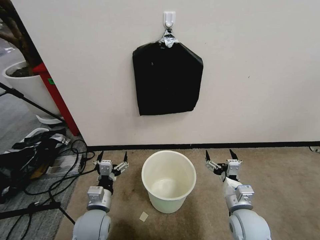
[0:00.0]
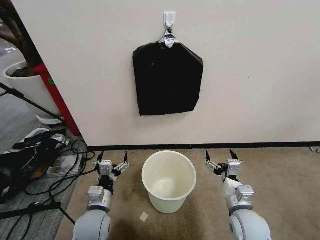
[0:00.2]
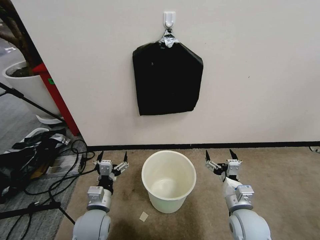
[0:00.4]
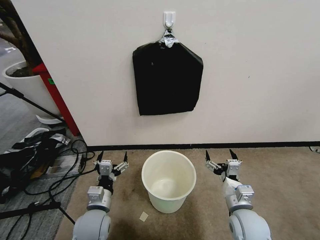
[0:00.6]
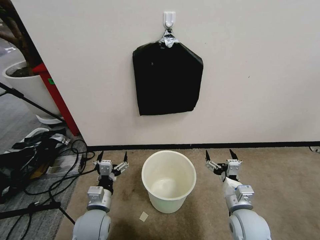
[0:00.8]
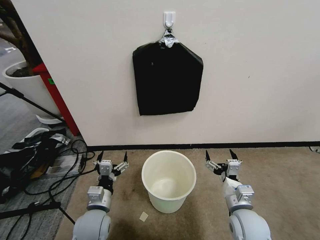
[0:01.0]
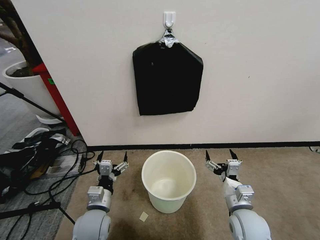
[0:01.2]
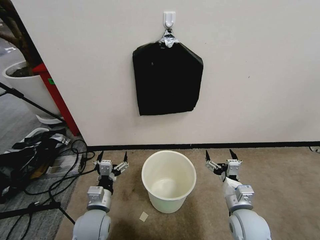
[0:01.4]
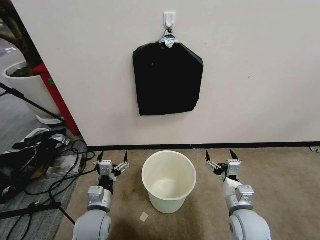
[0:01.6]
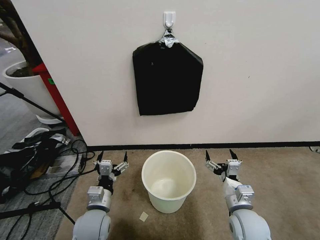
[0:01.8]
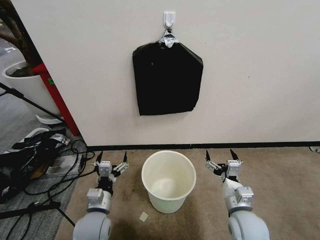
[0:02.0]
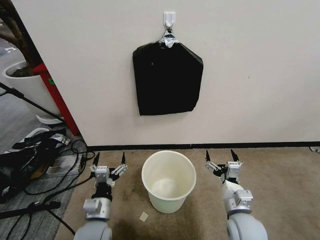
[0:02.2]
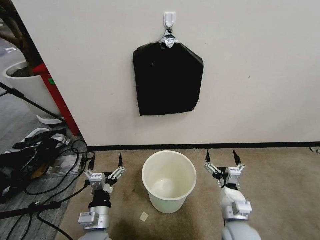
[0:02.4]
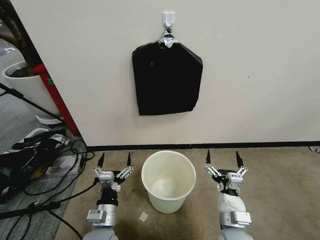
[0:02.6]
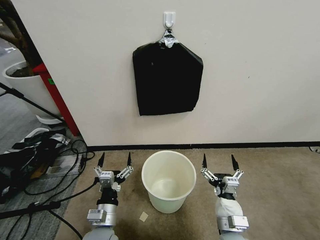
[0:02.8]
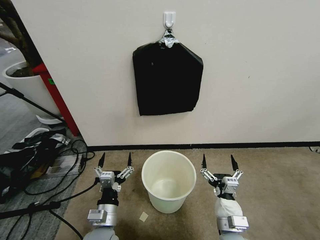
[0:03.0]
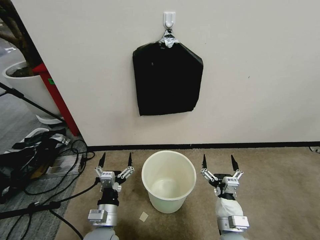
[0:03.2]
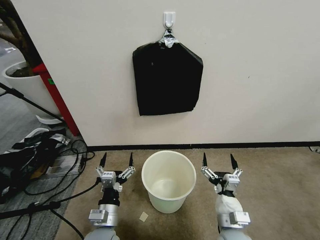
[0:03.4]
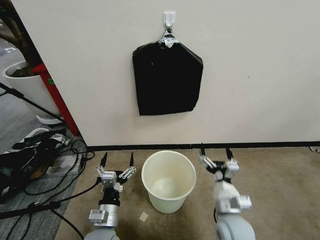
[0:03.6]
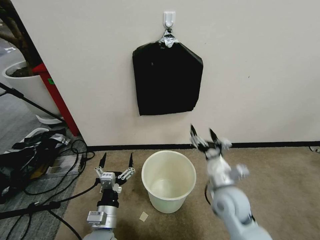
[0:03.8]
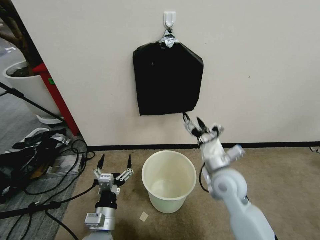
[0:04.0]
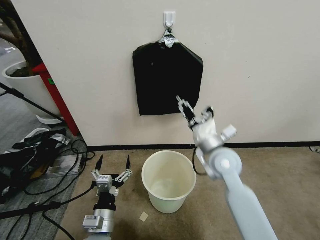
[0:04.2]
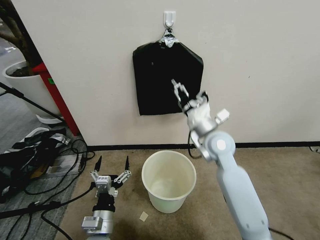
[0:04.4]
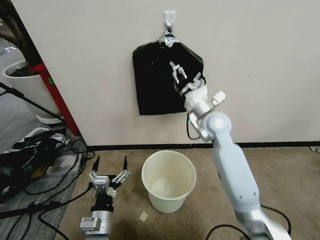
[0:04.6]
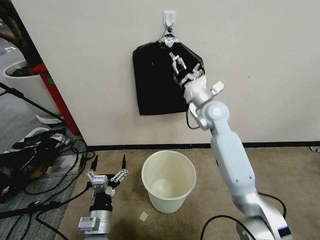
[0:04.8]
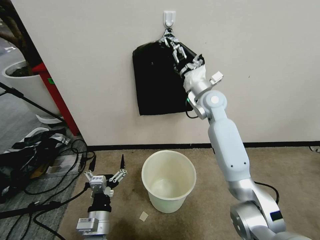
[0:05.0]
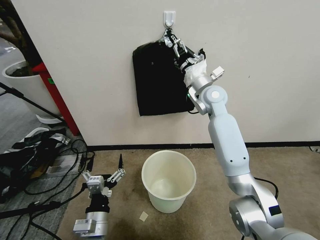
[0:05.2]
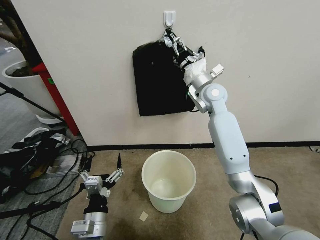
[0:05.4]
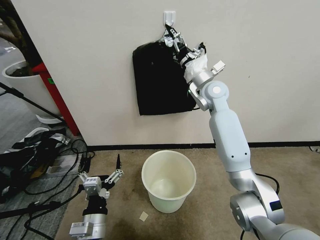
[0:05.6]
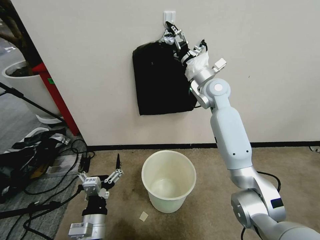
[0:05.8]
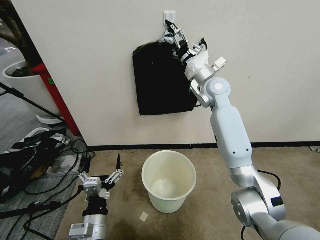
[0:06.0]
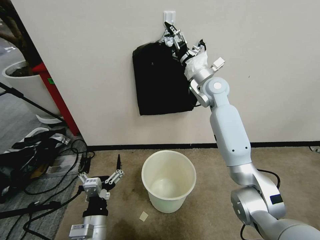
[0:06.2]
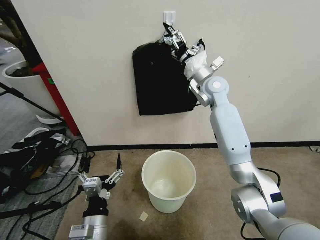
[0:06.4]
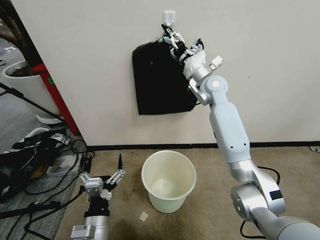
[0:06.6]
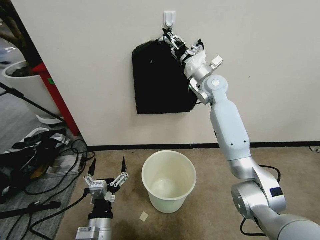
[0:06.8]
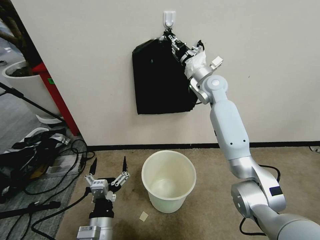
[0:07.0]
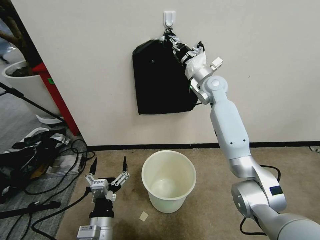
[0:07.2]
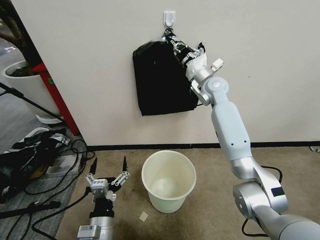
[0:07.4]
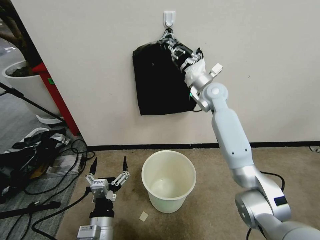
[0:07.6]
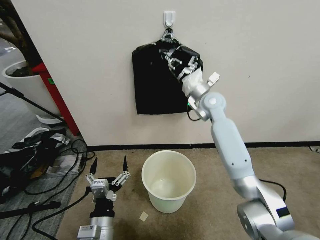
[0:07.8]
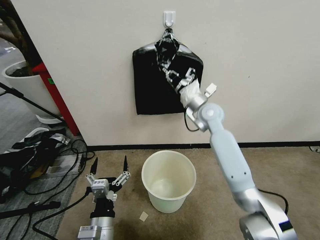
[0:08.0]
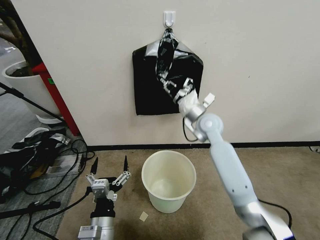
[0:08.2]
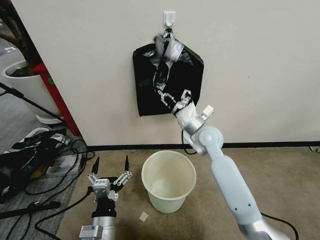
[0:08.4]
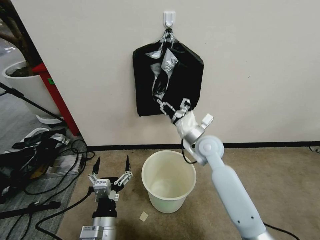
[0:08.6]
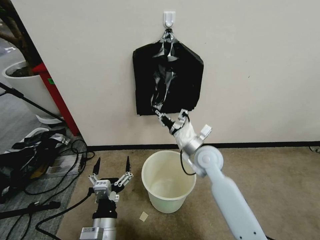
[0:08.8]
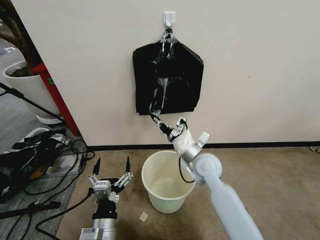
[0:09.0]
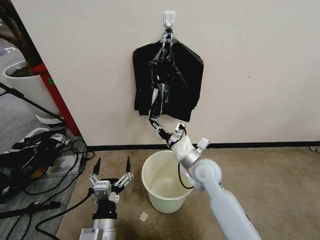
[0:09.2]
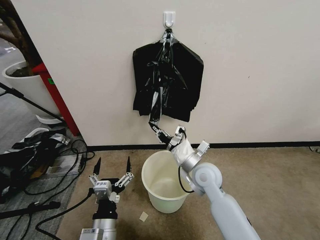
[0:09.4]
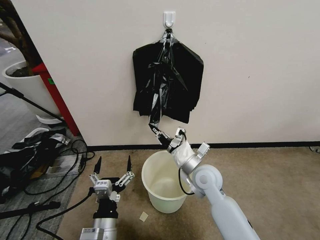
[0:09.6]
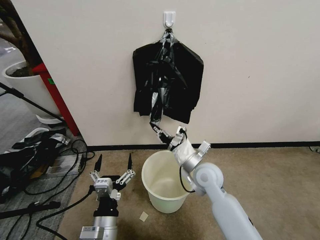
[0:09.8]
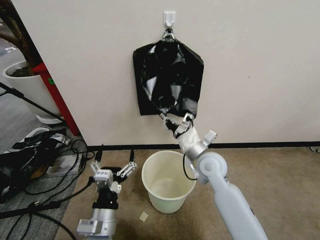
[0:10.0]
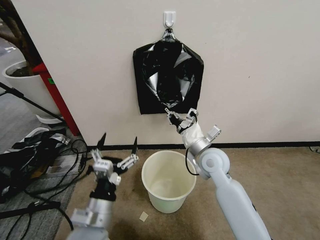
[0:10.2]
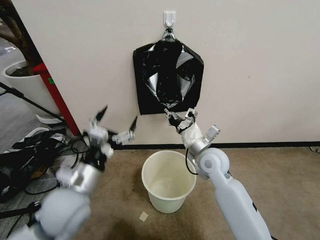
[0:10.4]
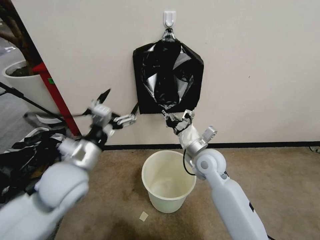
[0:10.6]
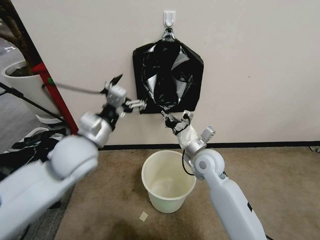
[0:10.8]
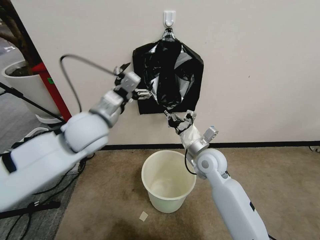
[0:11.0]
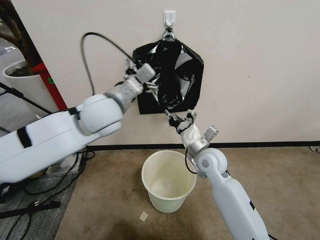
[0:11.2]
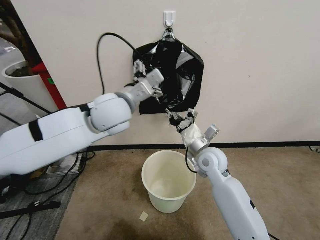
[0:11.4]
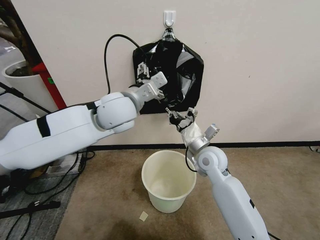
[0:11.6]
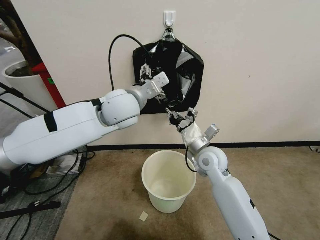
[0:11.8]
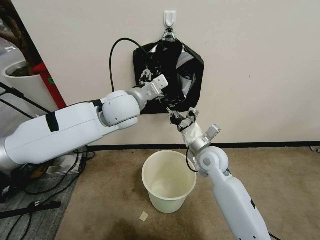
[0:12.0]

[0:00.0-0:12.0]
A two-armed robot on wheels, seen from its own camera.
Task of the whole recording: Place a trash bag onto the trash bin.
0:01.6 to 0:03.0: The right gripper travels backward and to the left by some 10 cm. Meanwhile the left gripper ends up approximately 5 cm from where it was.
0:03.0 to 0:04.4: The right gripper is displaced forward and upward by approximately 30 cm.
0:04.4 to 0:06.0: The right gripper heads forward and upward, covering about 15 cm.
0:06.0 to 0:07.6: The right gripper closes its fingers.
0:07.6 to 0:09.0: The right gripper heads backward and downward, covering about 25 cm.
0:09.0 to 0:10.4: The left gripper moves upward, forward and to the left, some 15 cm.
0:10.4 to 0:12.0: The left gripper travels forward, upward and to the right by about 30 cm.

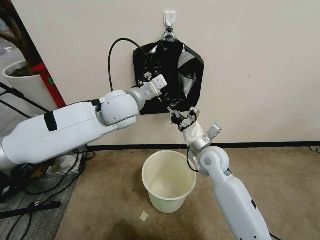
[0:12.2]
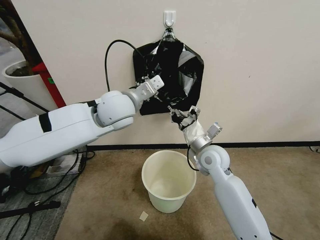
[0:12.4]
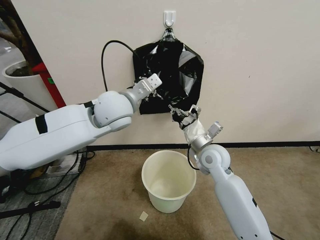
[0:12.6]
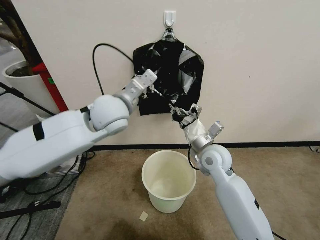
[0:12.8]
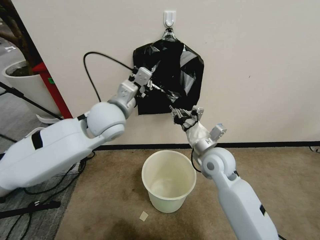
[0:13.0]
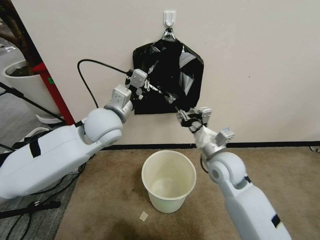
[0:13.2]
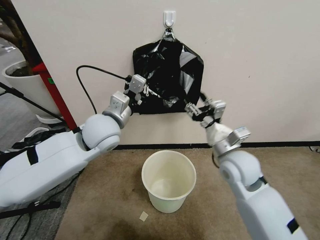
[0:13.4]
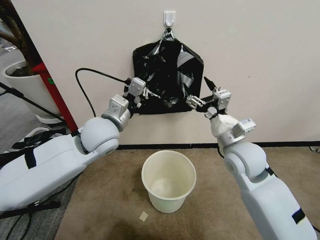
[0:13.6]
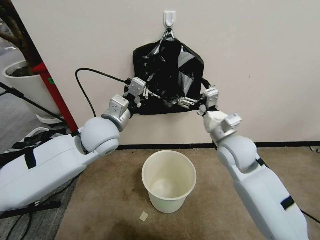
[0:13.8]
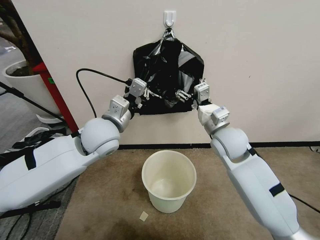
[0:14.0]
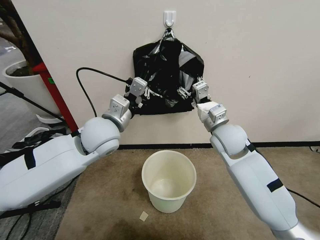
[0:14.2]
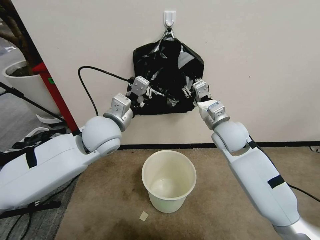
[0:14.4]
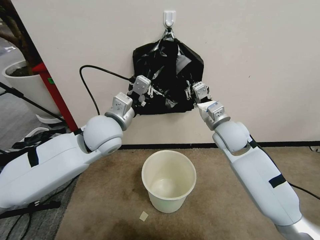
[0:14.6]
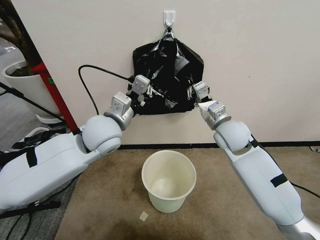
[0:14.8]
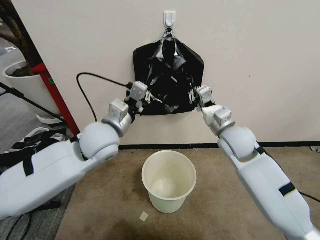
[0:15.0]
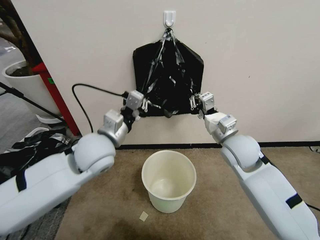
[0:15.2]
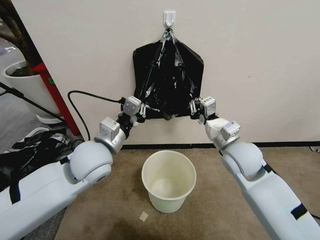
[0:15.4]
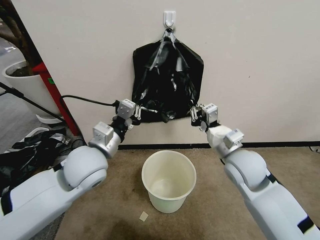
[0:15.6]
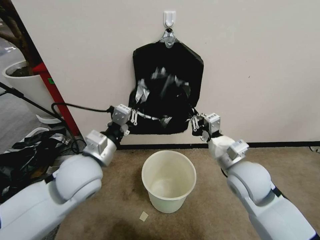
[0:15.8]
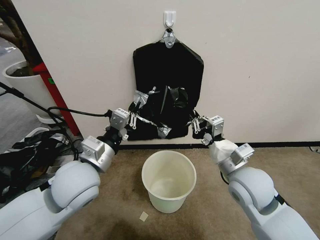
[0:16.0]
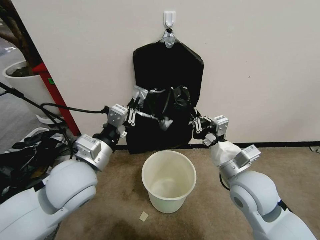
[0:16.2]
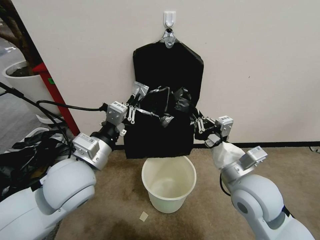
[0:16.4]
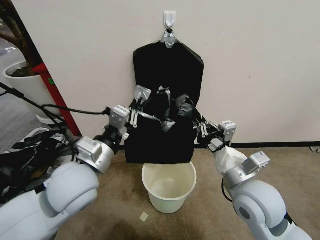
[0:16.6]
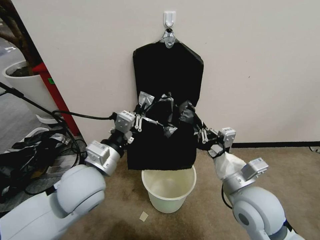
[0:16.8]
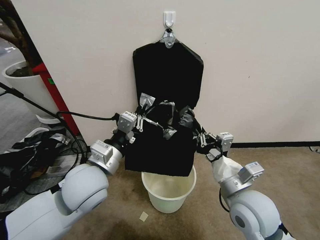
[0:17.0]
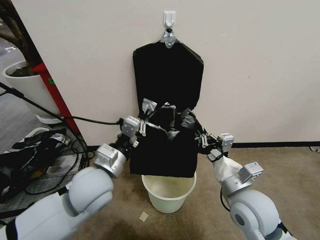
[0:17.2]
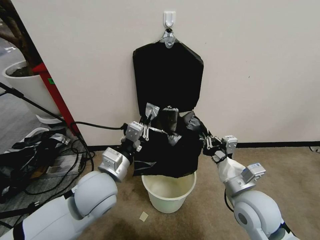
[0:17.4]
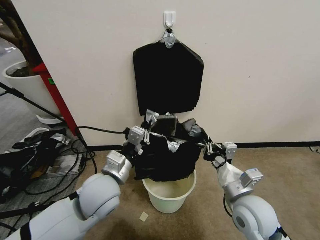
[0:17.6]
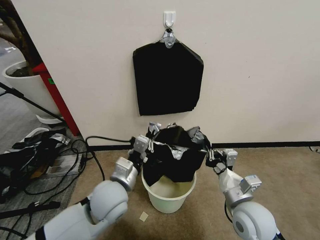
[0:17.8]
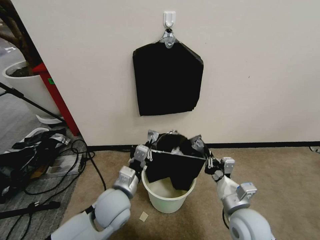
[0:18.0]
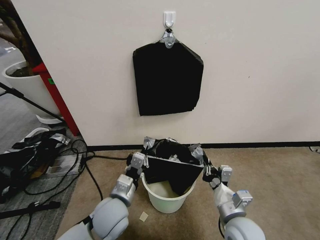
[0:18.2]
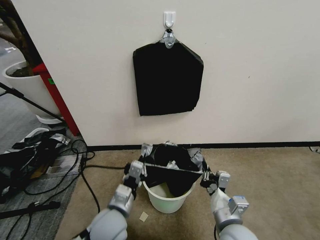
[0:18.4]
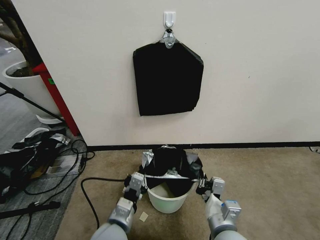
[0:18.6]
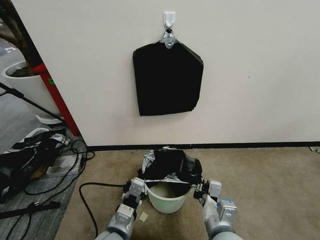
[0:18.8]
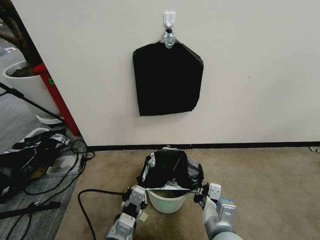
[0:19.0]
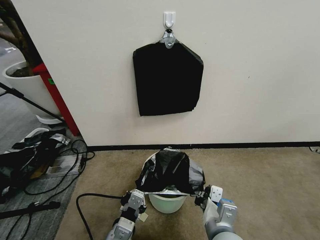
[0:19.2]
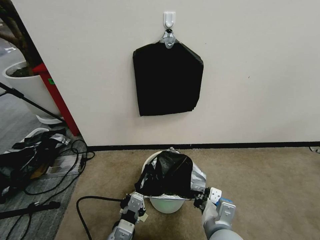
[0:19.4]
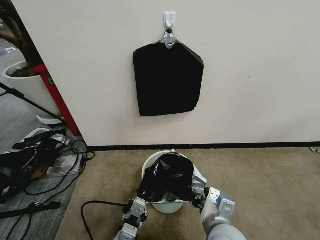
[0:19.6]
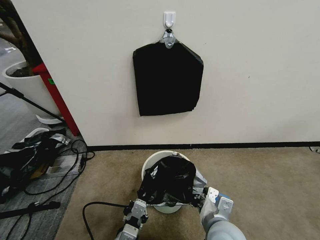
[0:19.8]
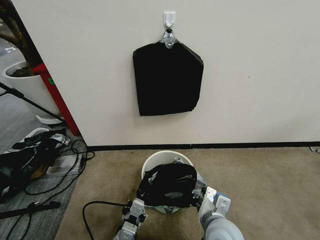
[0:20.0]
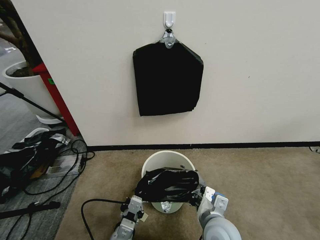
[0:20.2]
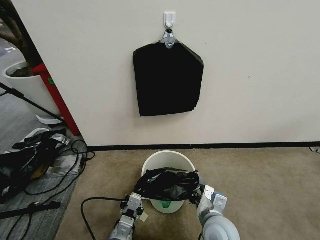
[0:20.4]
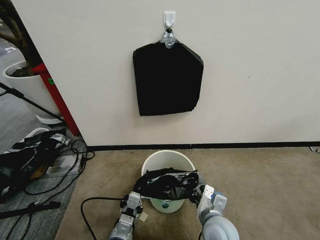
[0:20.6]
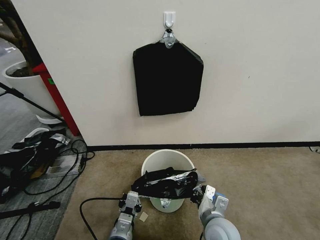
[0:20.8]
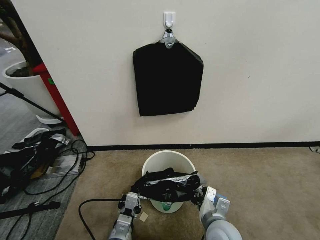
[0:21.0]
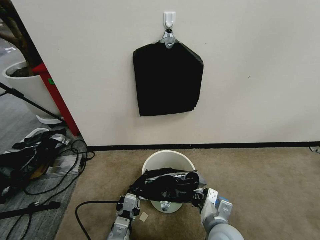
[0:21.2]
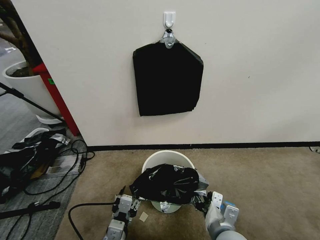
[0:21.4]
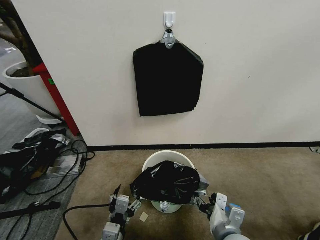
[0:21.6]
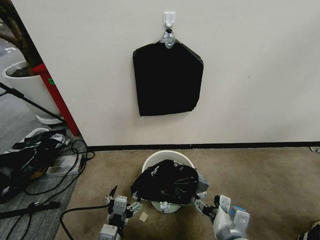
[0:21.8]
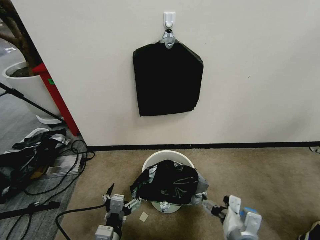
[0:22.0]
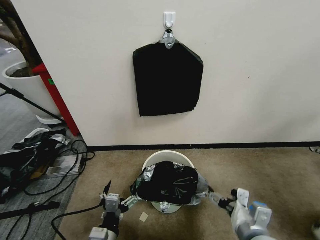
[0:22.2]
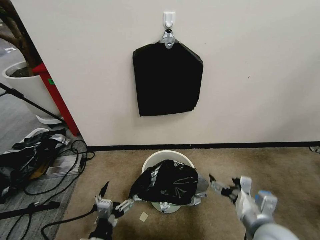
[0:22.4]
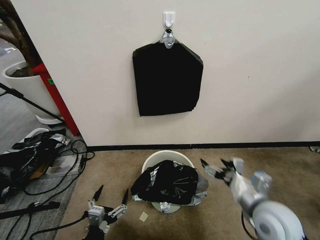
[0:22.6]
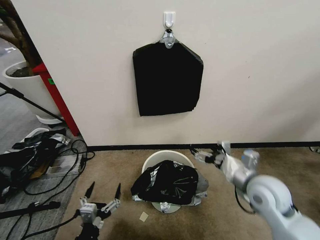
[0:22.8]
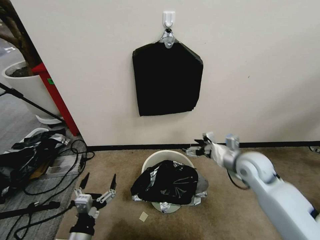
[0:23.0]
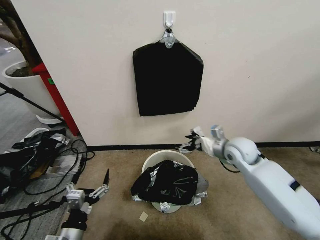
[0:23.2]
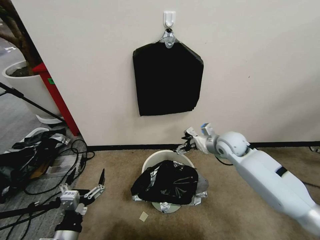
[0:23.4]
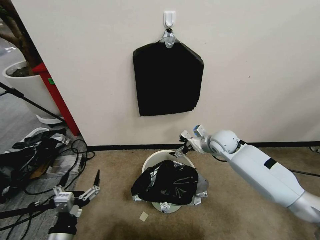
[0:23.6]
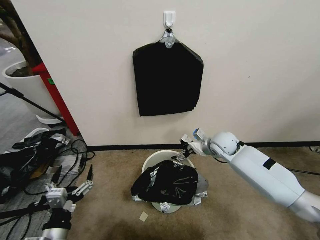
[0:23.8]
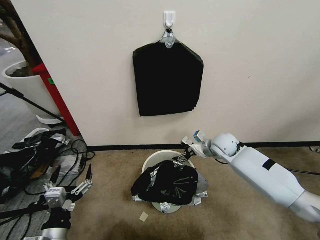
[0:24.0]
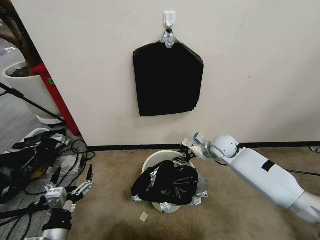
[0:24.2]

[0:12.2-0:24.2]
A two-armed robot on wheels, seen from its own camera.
Task of the whole recording: Place a trash bag onto the trash bin.
0:12.2 to 0:13.8: The left gripper travels to the left and downward by roughly 5 cm, and closes; the right gripper heads upward, covering roughly 10 cm, and opens its fingers.
0:13.8 to 0:15.2: The right gripper closes.
0:15.2 to 0:16.6: The right gripper goes roughly 15 cm backward; the left gripper shifts some 10 cm backward.
0:16.6 to 0:18.2: The two grippers go roughly 15 cm downward.
0:18.2 to 0:19.8: The left gripper heads backward, covering some 15 cm, while the right gripper is displaced to the left by approximately 5 cm.
0:21.2 to 0:22.6: The right gripper travels to the right and upward by approximately 15 cm, and opens its fingers. Meanwhile the left gripper heads to the left and backward, covering about 10 cm, and opens its fingers.
0:22.6 to 0:24.2: The right gripper heads forward, covering roughly 25 cm, and closes its fingers. Meanwhile the left gripper goes some 10 cm upward and to the left.
